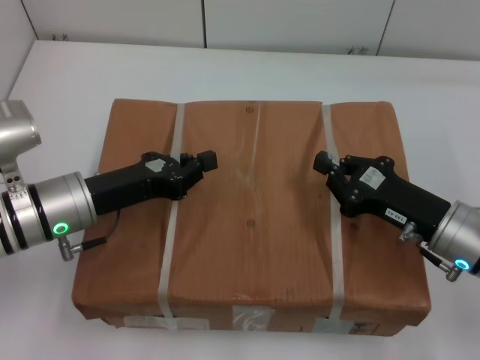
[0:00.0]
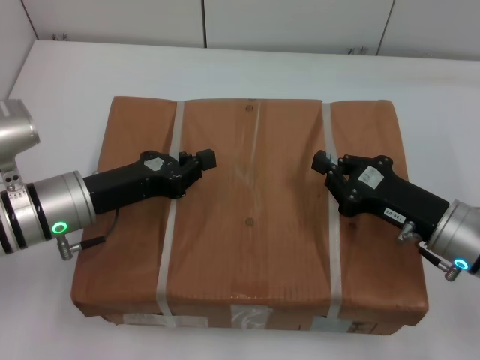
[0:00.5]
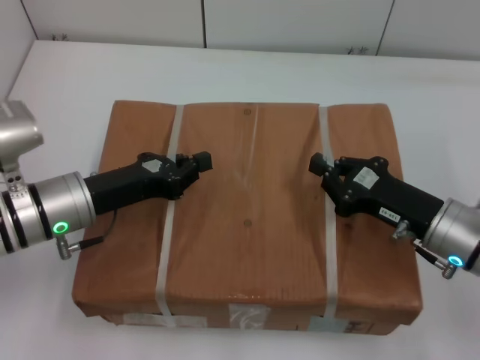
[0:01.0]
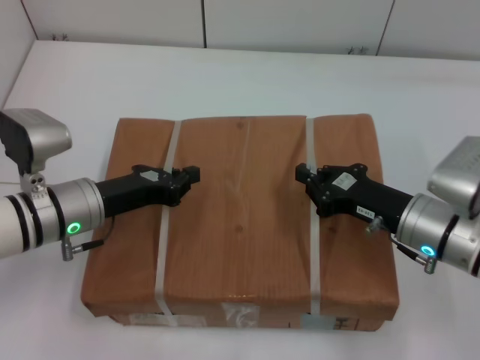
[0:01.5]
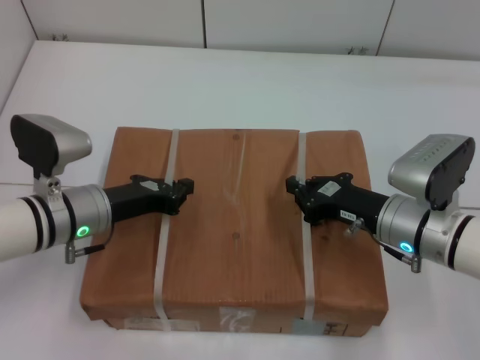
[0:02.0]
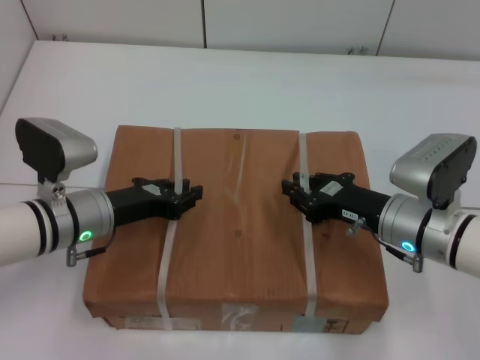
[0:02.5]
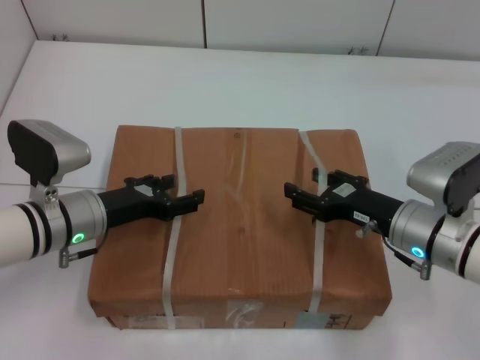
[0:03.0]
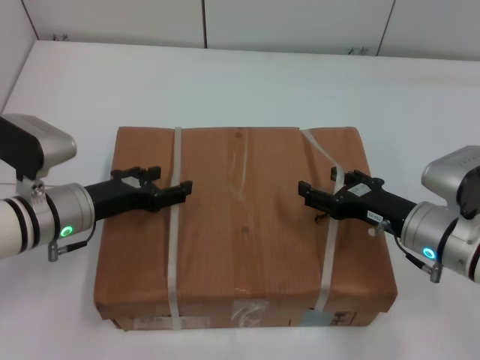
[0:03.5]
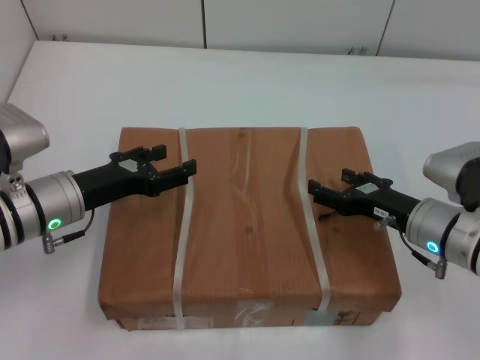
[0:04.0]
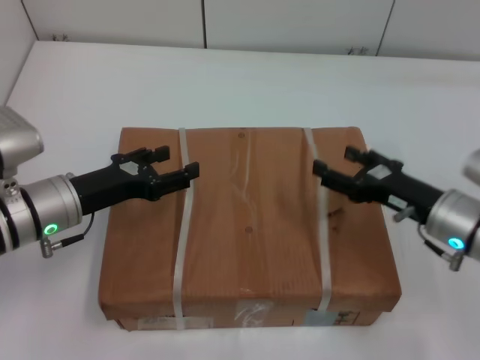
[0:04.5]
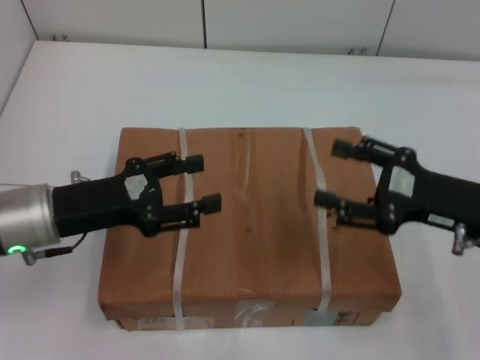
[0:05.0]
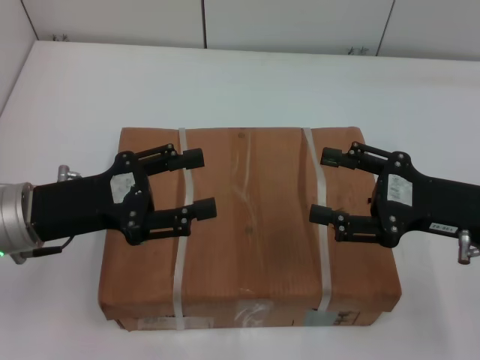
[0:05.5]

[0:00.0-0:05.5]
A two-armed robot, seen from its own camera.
Task of the whole recording: place the box on the table with both arms.
Step, 0:00.0 to 0:02.0: Place the box on the table with left gripper.
Step, 0:00.0 to 0:02.0: Place the box on the table with right gripper.
Step, 0:02.5 to 0:04.0: Loosen the box on the table with left gripper.
Step, 0:02.5 to 0:04.0: Loosen the box on the table with right gripper.
0:00.0 to 0:02.0: The right gripper moves roughly 5 cm.
0:02.0 to 0:03.5: The right gripper opens up. Meanwhile the left gripper opens.
0:03.5 to 0:05.5: The left gripper travels upward and backward by some 10 cm, while the right gripper heads upward, covering some 10 cm.

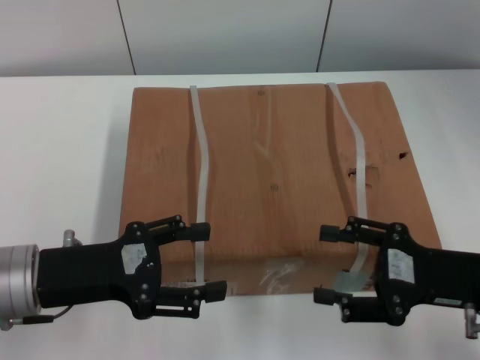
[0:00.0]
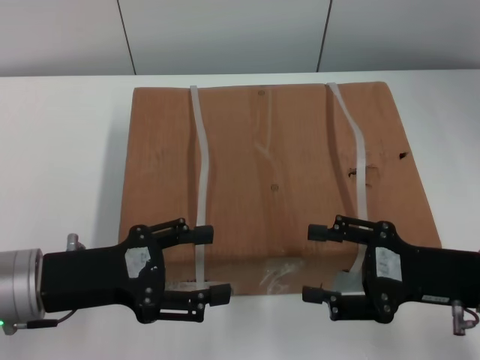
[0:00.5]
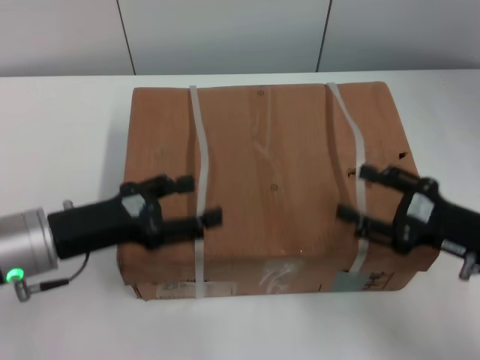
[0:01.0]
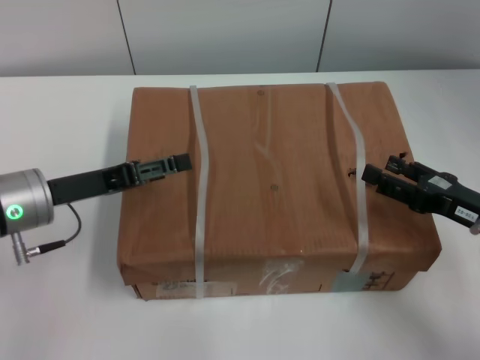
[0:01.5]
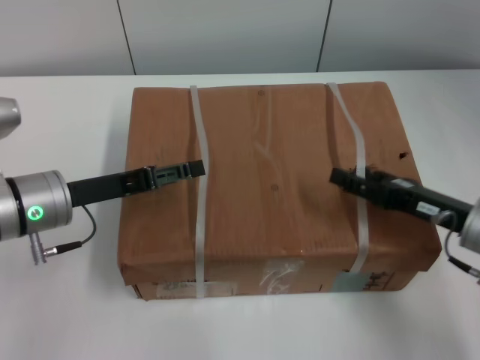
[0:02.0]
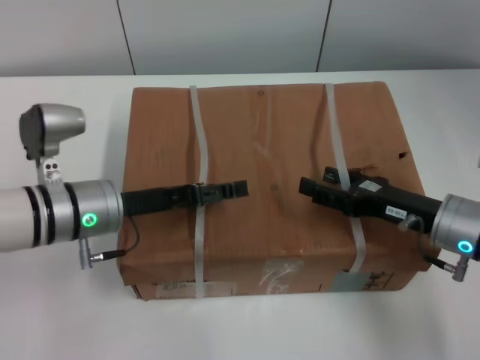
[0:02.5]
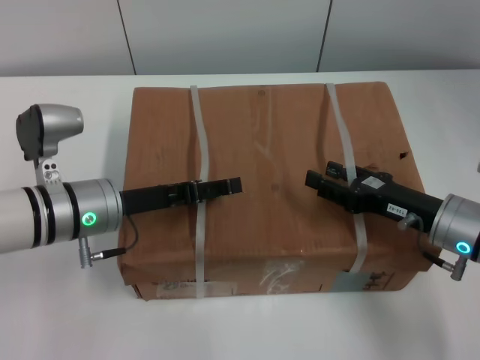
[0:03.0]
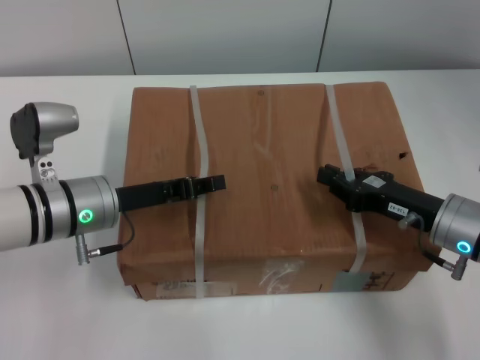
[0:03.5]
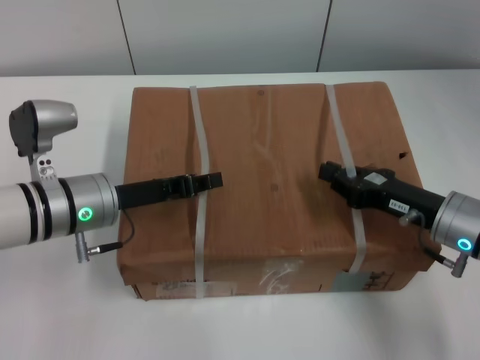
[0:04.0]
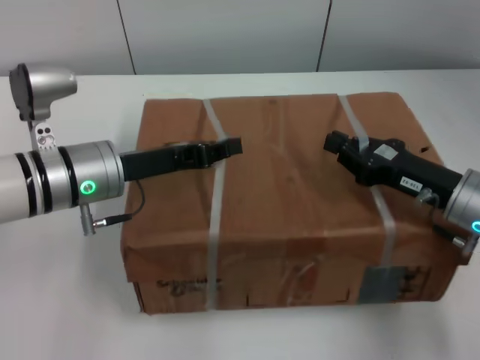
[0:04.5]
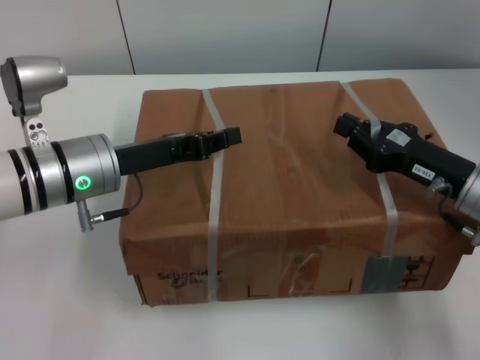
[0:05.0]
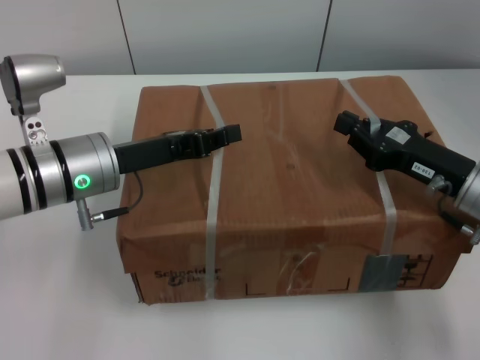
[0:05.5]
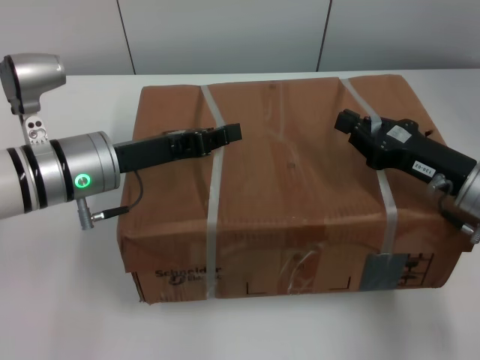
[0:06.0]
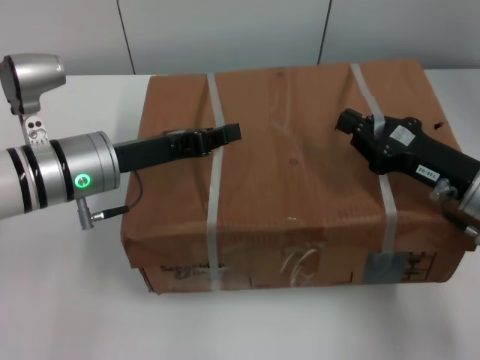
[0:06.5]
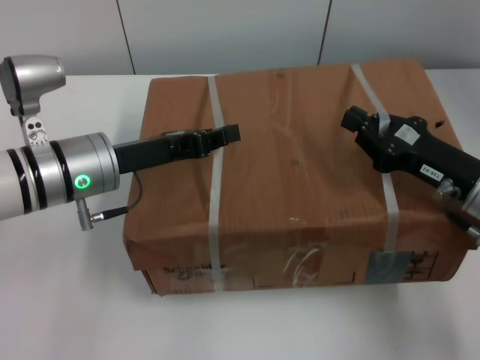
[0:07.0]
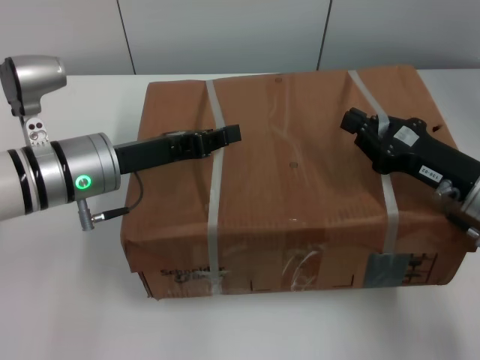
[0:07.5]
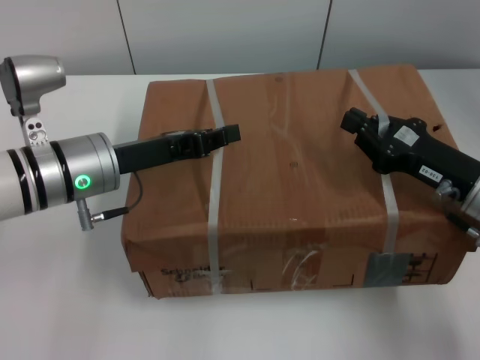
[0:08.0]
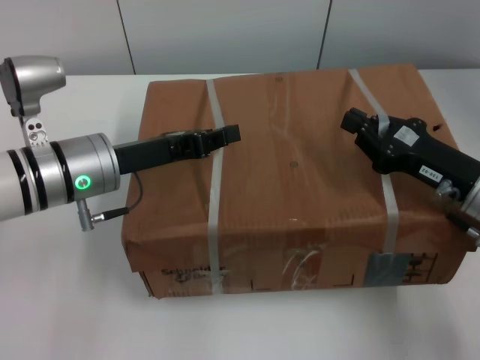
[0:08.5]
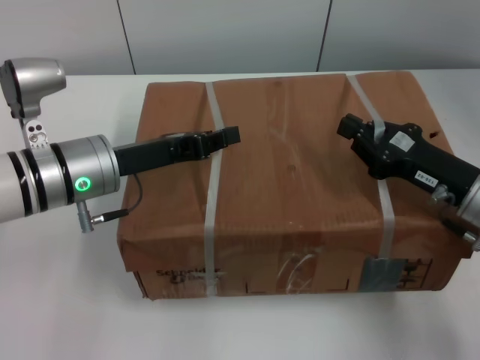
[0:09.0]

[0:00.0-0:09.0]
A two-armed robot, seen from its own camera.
Task of the whole recording: pick up the box from the table with both arms.
Step, 0:00.0 to 0:04.0: Grasp the bandage with left gripper.
Step, 0:00.0 to 0:04.0: Grasp the bandage with right gripper.
Step, 0:04.5 to 0:05.0: Lift the box with left gripper.
Step, 0:04.5 to 0:05.0: Lift the box with right gripper.
0:00.0 to 0:02.0: Both grippers move forward, some 5 cm.
0:02.0 to 0:04.5: The left gripper shifts roughly 5 cm to the right, and closes up. Meanwhile the right gripper closes up.
0:07.0 to 0:09.0: Neither gripper changes place.
